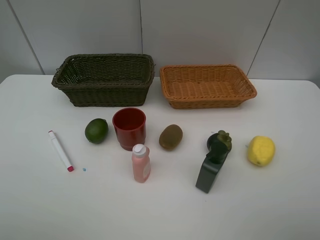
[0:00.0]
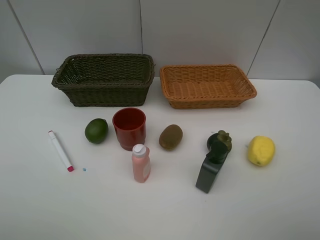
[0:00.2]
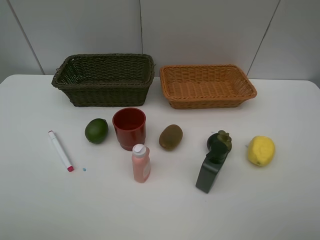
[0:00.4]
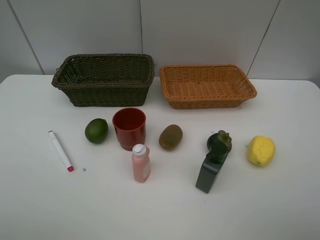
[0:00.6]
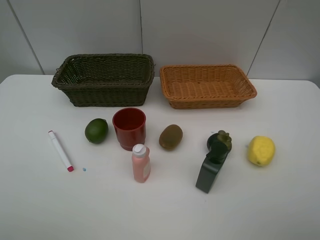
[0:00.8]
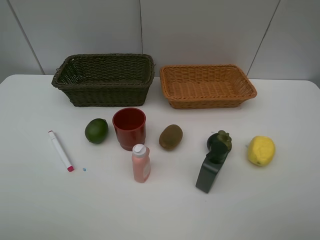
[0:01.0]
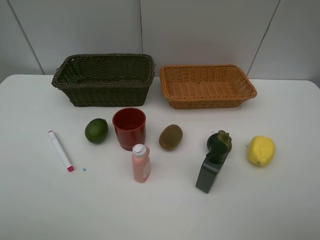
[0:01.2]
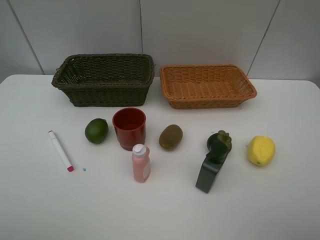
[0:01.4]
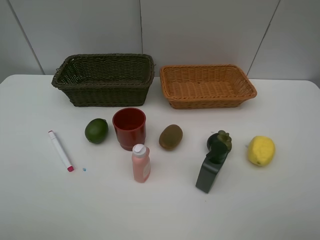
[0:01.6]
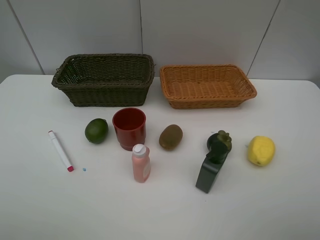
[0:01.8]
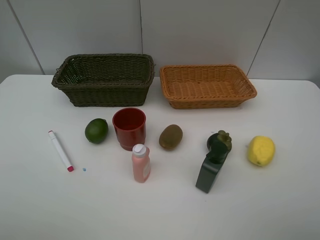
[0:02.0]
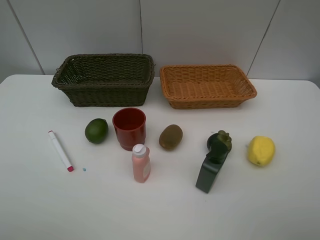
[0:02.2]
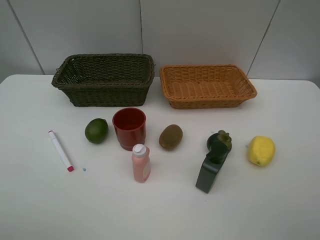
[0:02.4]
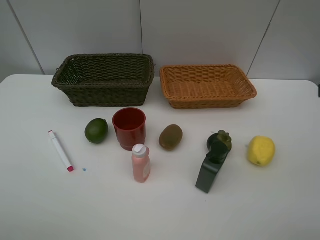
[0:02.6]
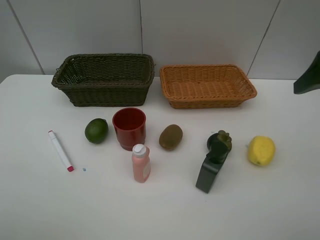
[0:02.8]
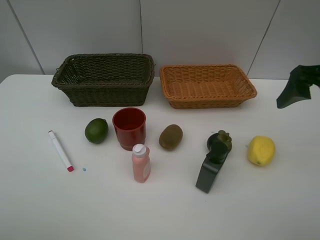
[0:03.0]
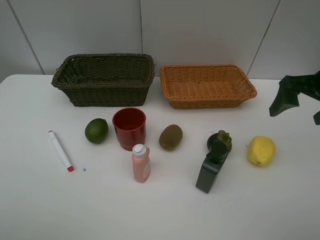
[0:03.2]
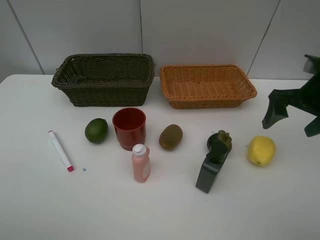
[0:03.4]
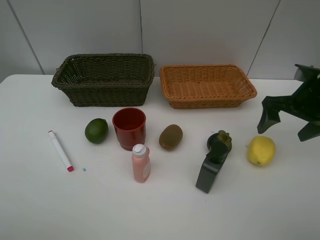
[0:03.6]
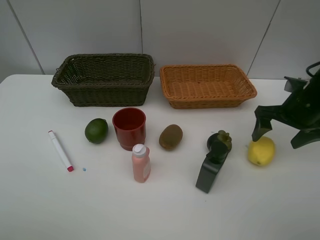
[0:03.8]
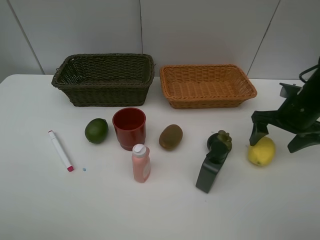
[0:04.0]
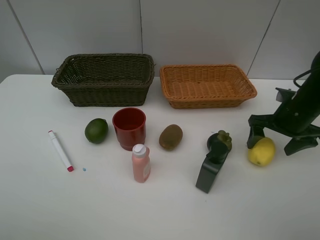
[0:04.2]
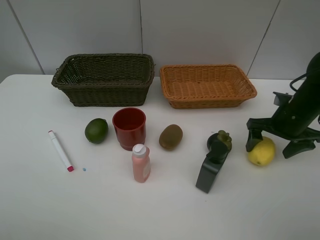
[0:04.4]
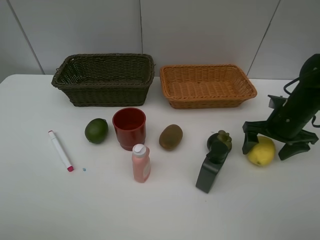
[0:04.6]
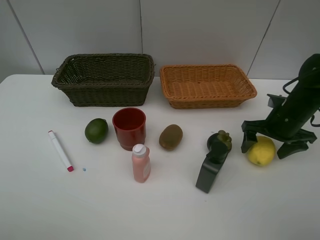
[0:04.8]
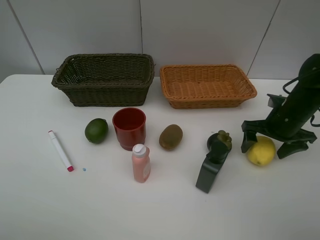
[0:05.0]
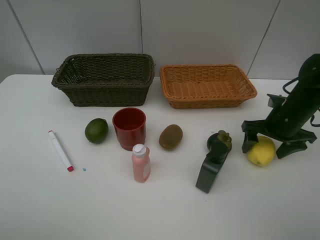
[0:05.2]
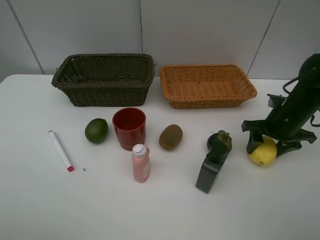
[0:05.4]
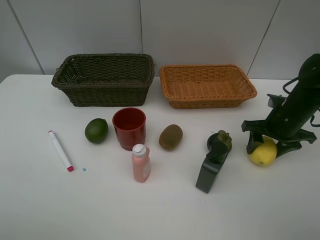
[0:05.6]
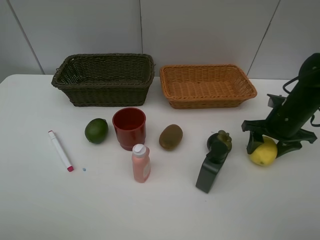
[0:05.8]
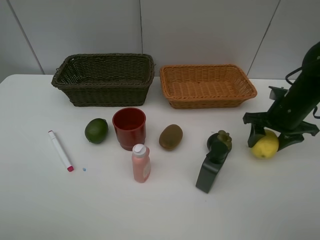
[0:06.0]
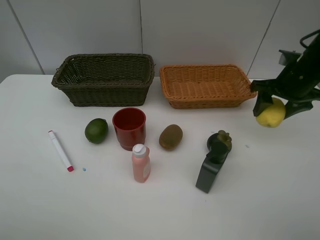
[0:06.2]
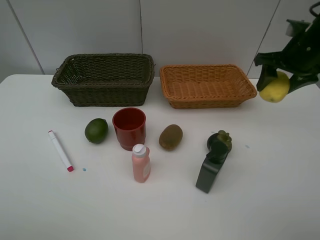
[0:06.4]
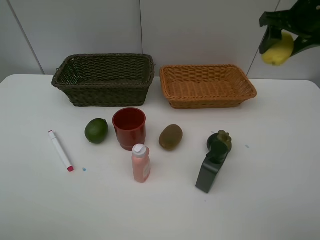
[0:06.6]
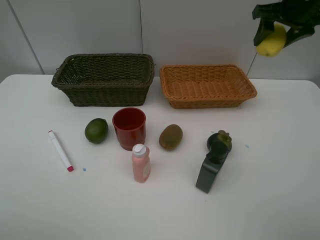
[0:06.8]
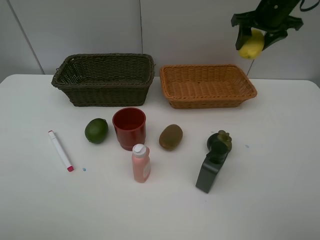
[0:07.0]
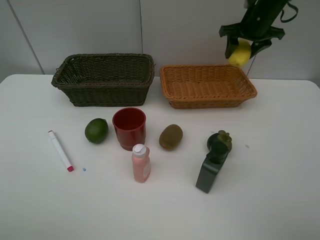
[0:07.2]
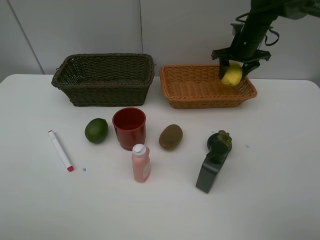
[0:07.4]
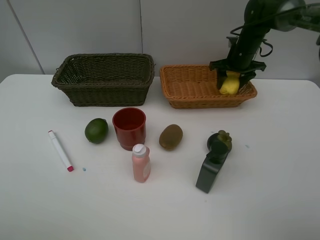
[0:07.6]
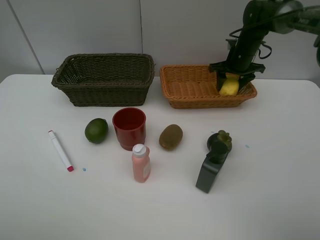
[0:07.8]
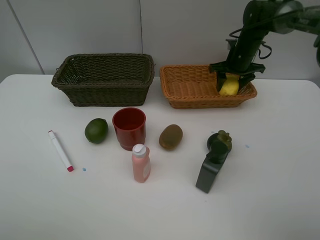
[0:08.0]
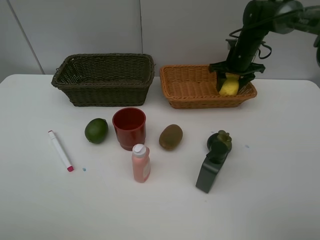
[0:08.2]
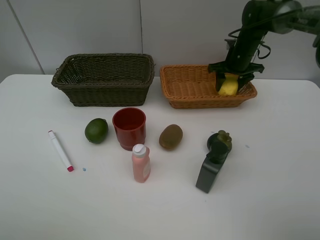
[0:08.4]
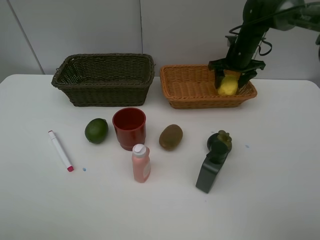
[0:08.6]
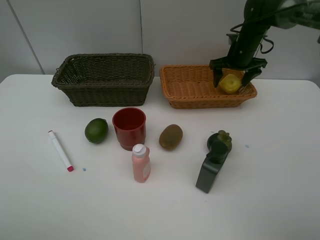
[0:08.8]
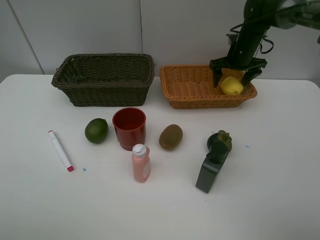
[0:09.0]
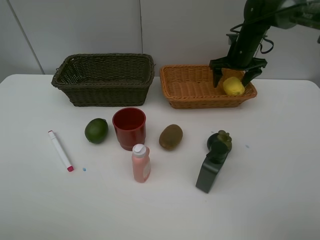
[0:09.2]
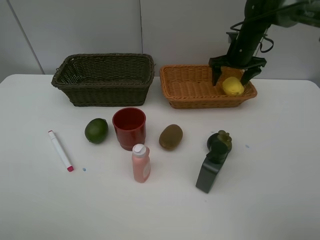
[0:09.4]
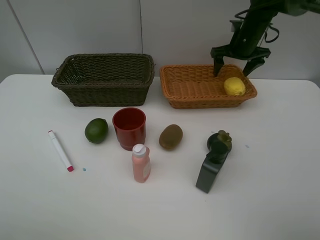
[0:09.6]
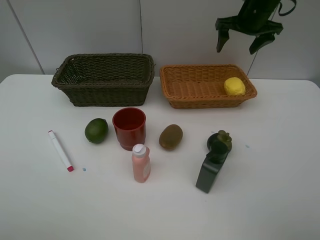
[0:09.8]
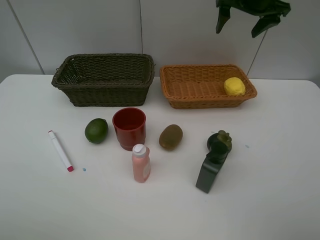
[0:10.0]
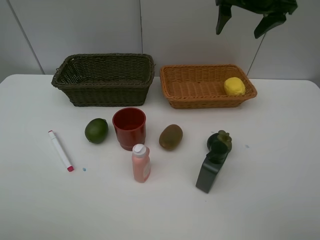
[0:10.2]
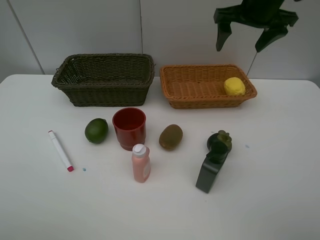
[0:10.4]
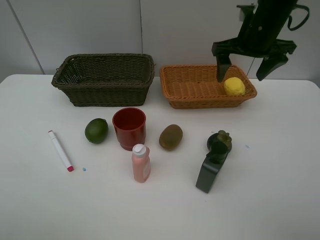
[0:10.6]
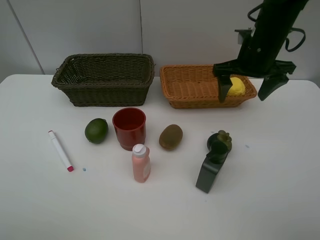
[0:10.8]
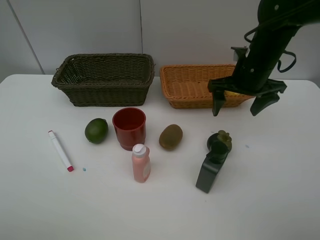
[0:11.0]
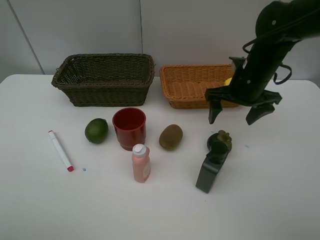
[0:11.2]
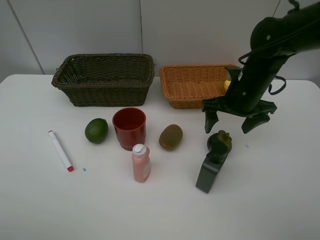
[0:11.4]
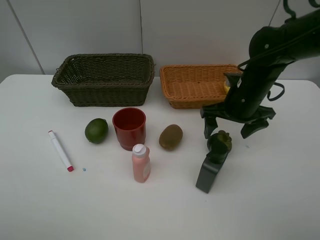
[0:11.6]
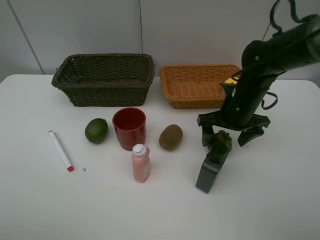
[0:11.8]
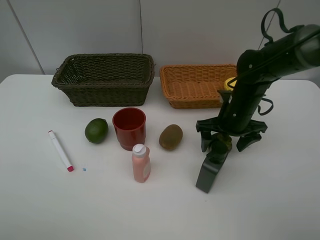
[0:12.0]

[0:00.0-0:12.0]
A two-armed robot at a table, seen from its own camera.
Task of the whole recording: Place multiple objects separately in different baskets.
Step, 0:00.0 to 0:06.0: Pick up the lemon with right gripper.
Step, 0:06.2 to 0:09.6: Place the lemon in the light basket with right gripper.
0:00.0 to 0:01.6: Neither gripper changes place.
0:01.6 to 0:03.0: The right gripper shifts approximately 25 cm forward.
0:03.0 to 0:04.4: The right gripper goes about 15 cm downward and forward.
0:04.4 to 0:06.0: The right gripper closes its fingers.
0:06.0 to 0:07.6: The right gripper travels forward by some 20 cm.
0:07.6 to 0:09.0: The right gripper opens up.
0:09.0 to 0:10.4: The right gripper heads upward and backward, covering about 20 cm.
0:10.4 to 0:12.0: The right gripper goes approximately 20 cm downward.

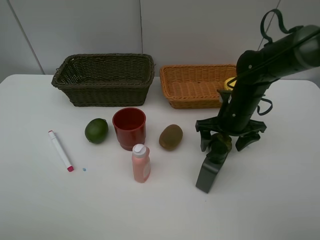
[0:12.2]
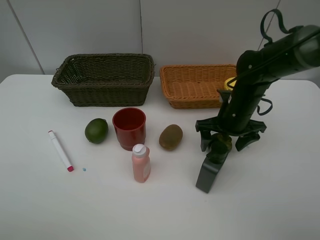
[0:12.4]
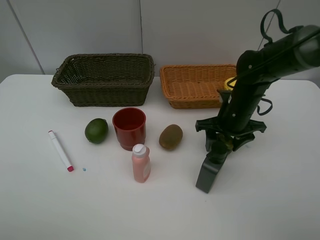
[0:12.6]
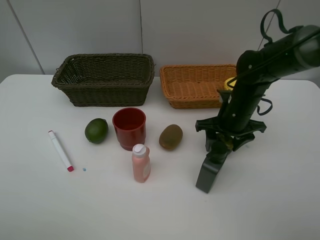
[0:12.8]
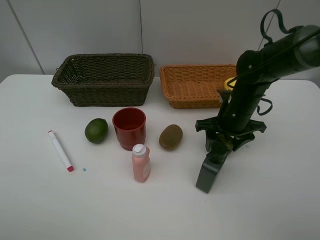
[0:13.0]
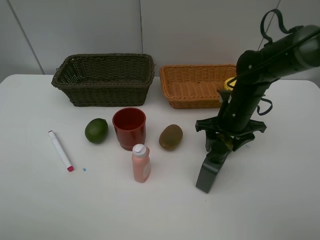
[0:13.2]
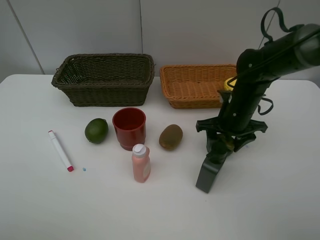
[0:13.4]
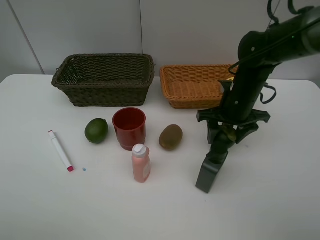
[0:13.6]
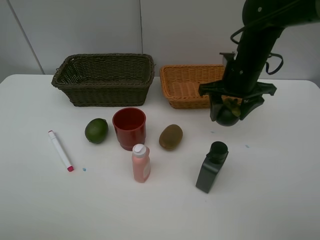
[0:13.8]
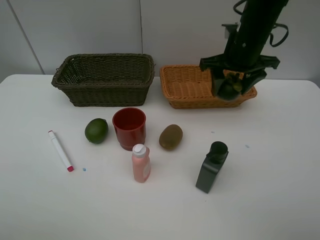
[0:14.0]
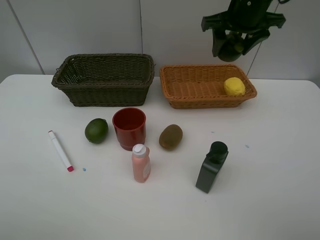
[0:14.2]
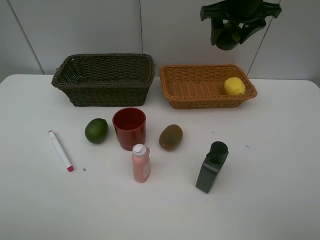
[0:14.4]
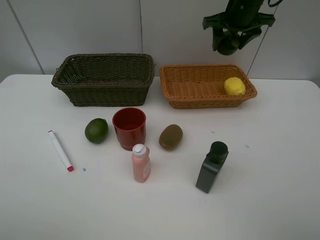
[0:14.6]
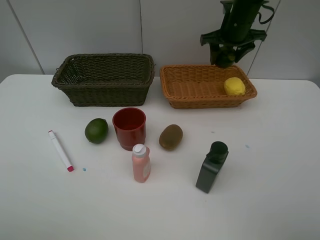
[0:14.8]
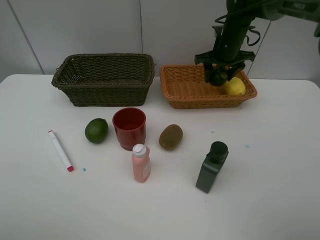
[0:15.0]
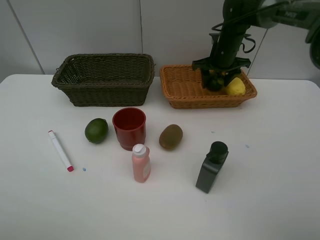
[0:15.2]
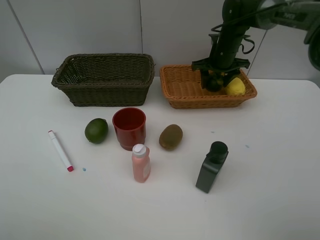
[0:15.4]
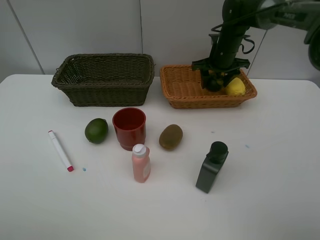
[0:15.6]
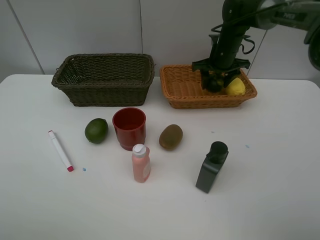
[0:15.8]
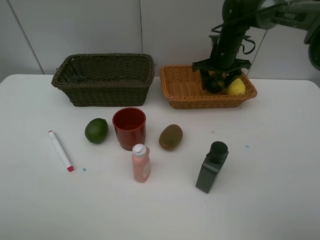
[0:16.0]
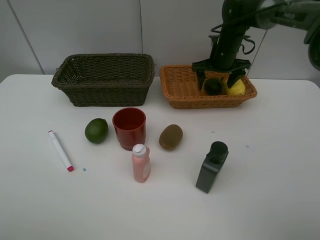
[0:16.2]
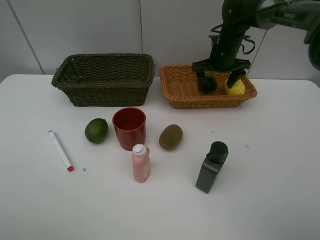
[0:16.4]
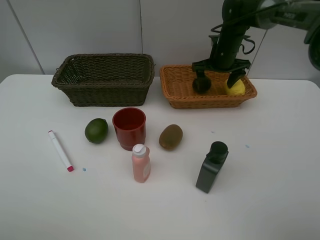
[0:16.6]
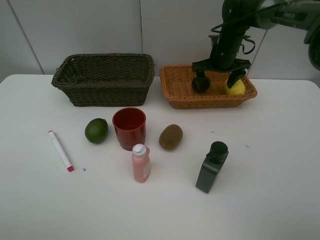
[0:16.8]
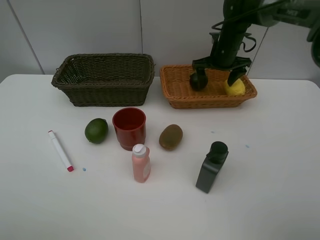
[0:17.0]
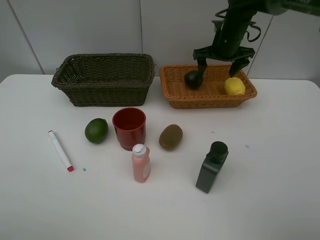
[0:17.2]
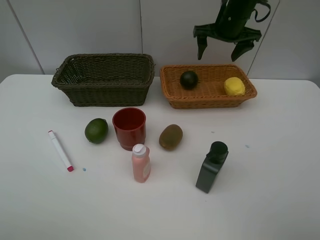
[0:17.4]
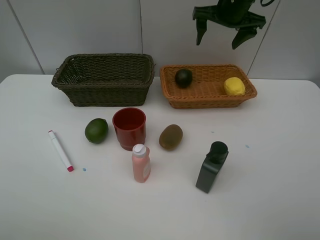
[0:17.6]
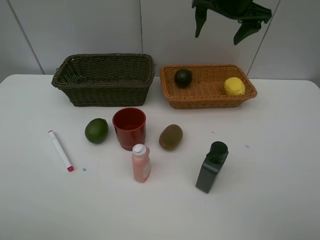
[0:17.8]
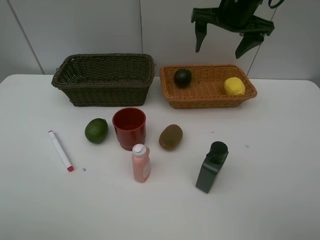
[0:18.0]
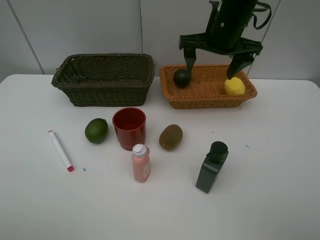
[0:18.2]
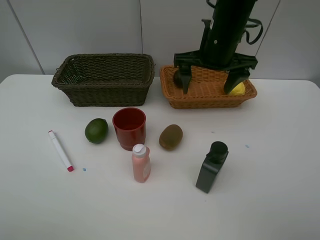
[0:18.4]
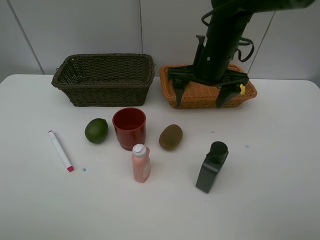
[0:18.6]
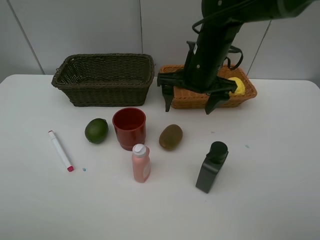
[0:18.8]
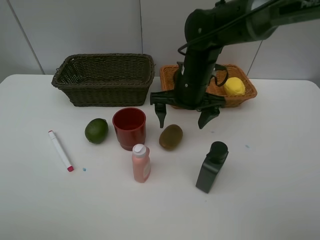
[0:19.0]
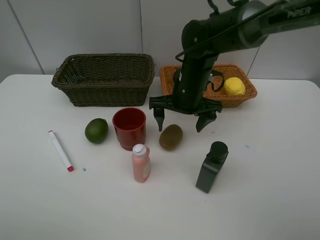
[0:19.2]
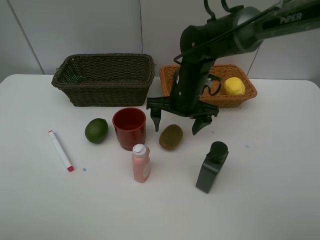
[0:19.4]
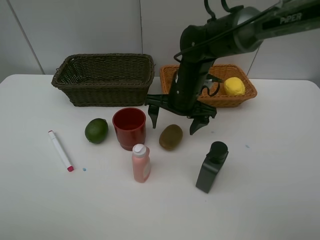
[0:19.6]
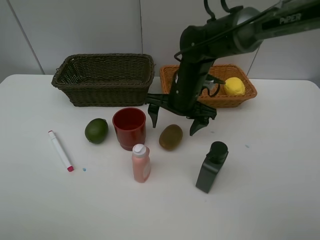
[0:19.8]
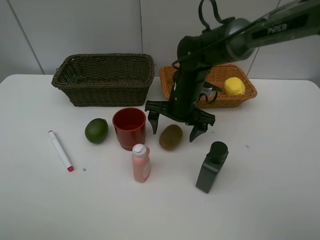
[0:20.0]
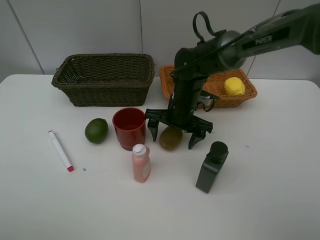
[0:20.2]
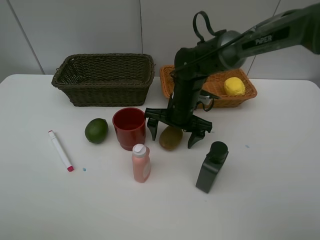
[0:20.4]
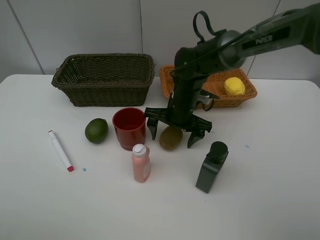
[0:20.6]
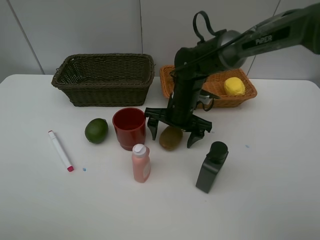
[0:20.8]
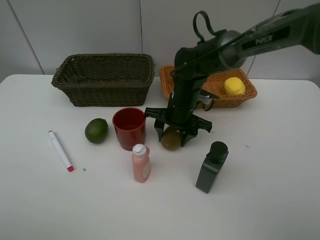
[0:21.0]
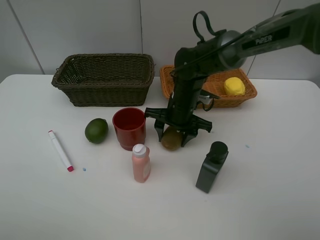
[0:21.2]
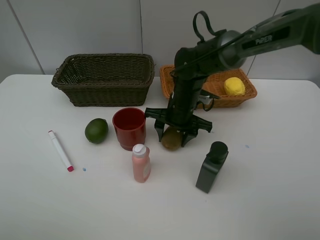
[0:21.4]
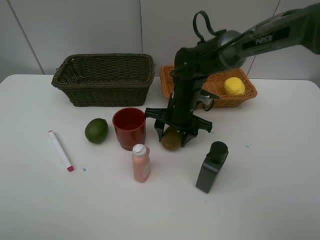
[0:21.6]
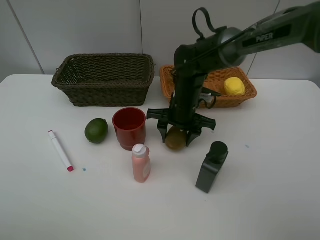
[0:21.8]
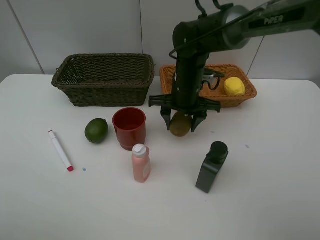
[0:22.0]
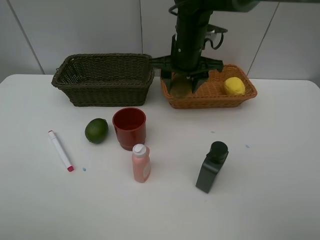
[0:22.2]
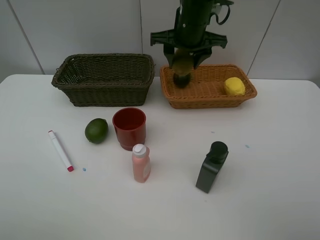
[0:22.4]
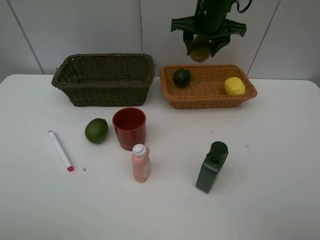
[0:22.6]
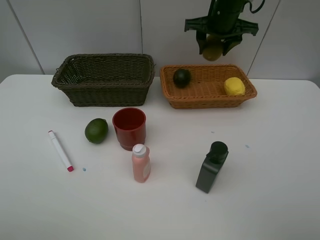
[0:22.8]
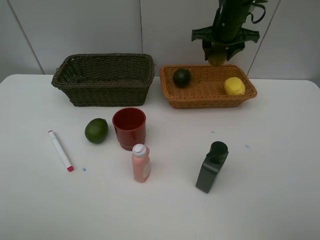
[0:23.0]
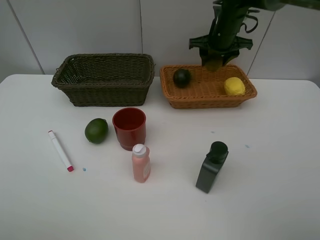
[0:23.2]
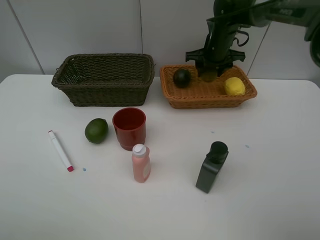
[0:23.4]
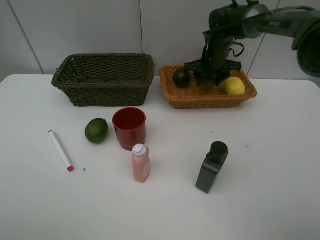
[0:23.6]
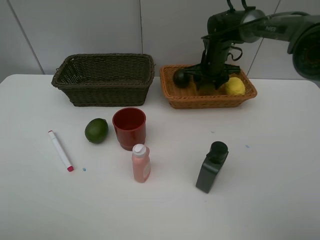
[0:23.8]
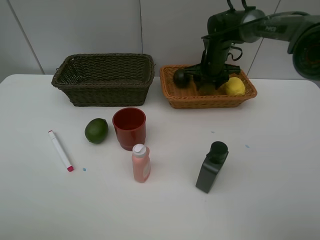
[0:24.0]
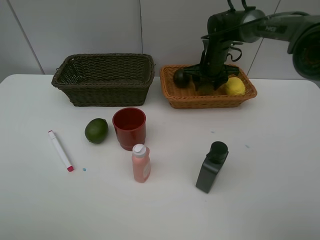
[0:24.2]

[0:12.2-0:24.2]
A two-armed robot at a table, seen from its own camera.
Task of the whole recording: Place multiple objects separately in different baskets.
Step, 0:13.8 to 0:17.2: Place the mangosteen in the light basket with right gripper.
Step, 0:17.4 to 0:22.0: Pick up kiwi with right gripper.
0:12.2 to 0:13.8: The right gripper heads upward, covering roughly 10 cm, and closes up.
0:13.8 to 0:15.2: The right gripper is displaced forward by roughly 15 cm.
0:15.2 to 0:16.6: The right gripper opens up.
0:16.6 to 0:18.2: The right gripper travels backward, upward and to the left by roughly 15 cm.
0:18.2 to 0:19.8: The right gripper goes approximately 15 cm downward and to the left.
0:19.8 to 0:21.2: The right gripper closes up.
0:21.2 to 0:22.6: The right gripper goes some 20 cm upward and forward.
0:22.6 to 0:24.2: The right gripper is displaced downward and forward by approximately 15 cm.
